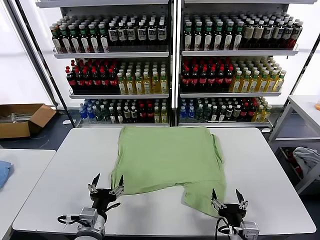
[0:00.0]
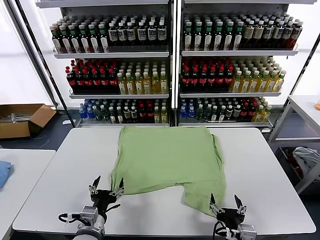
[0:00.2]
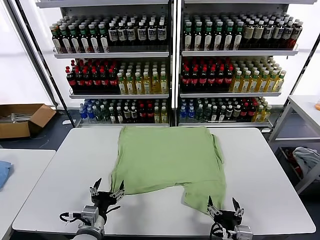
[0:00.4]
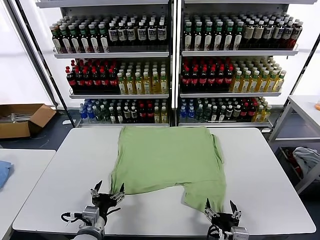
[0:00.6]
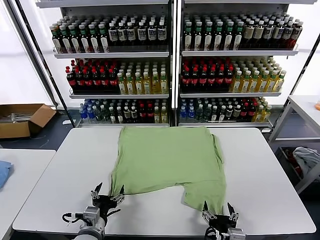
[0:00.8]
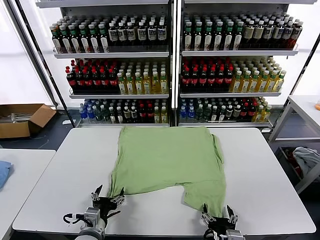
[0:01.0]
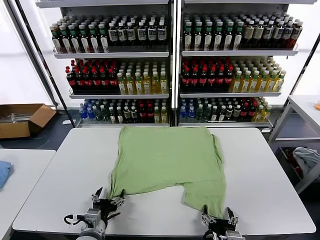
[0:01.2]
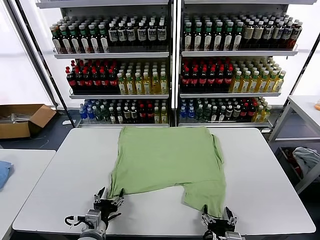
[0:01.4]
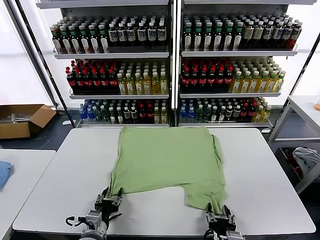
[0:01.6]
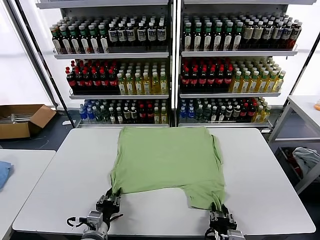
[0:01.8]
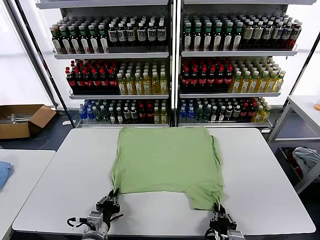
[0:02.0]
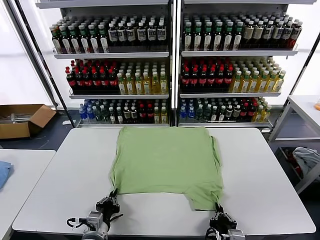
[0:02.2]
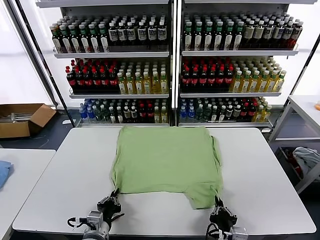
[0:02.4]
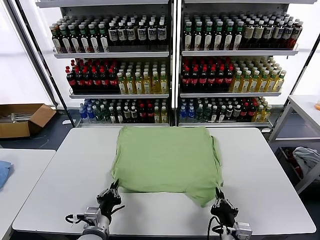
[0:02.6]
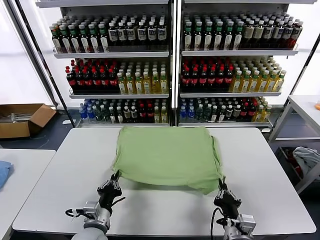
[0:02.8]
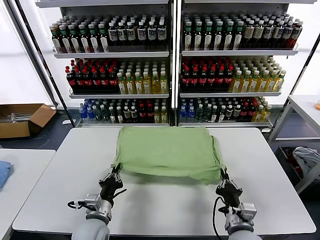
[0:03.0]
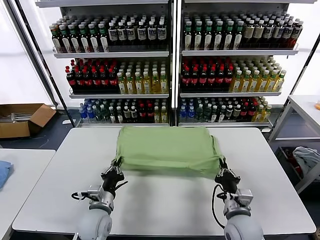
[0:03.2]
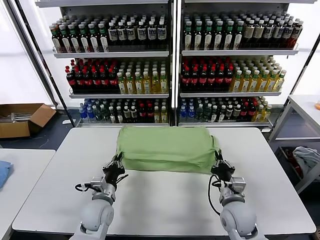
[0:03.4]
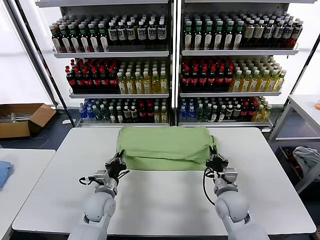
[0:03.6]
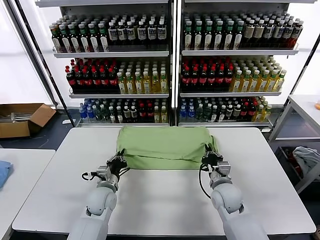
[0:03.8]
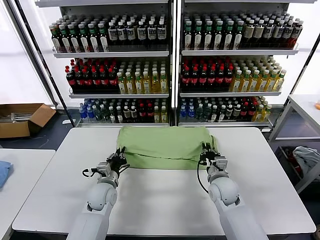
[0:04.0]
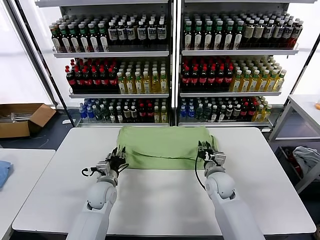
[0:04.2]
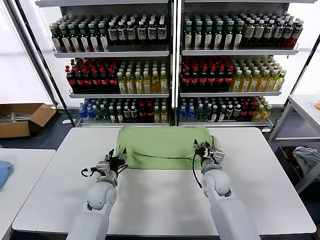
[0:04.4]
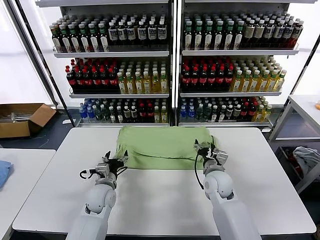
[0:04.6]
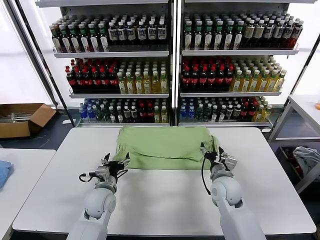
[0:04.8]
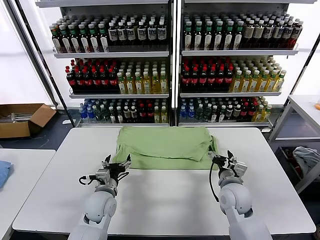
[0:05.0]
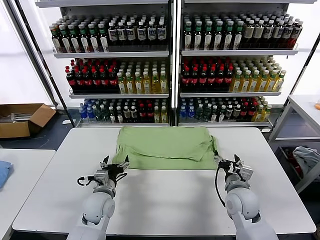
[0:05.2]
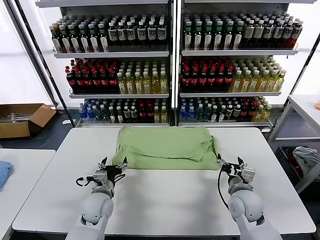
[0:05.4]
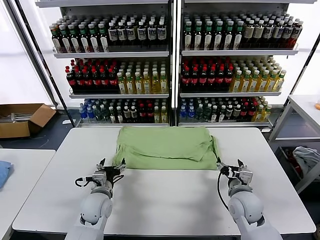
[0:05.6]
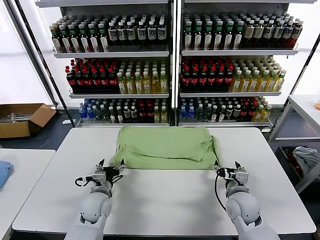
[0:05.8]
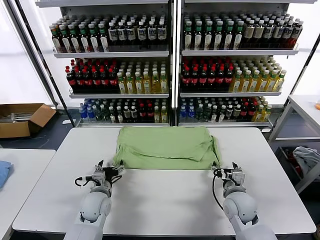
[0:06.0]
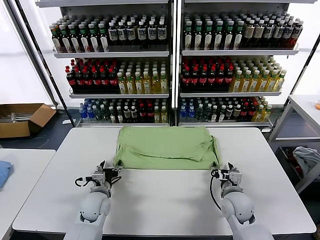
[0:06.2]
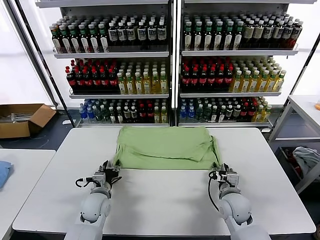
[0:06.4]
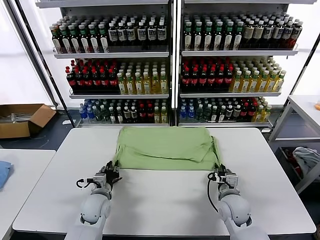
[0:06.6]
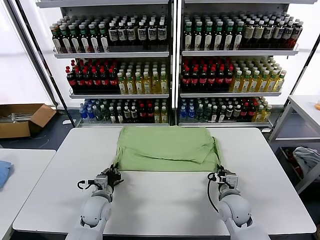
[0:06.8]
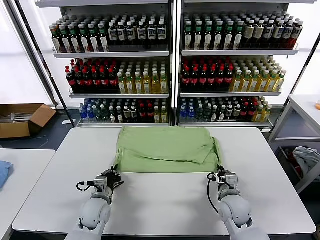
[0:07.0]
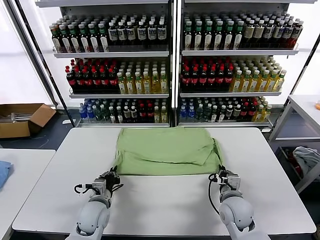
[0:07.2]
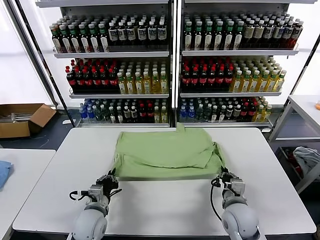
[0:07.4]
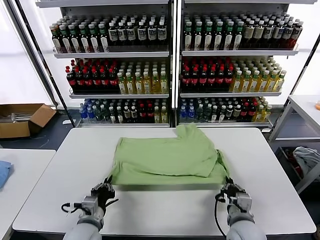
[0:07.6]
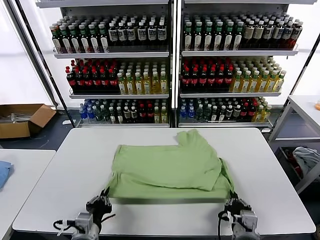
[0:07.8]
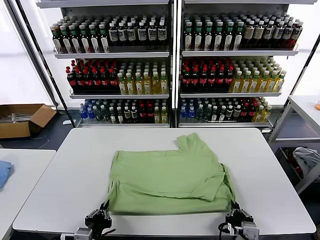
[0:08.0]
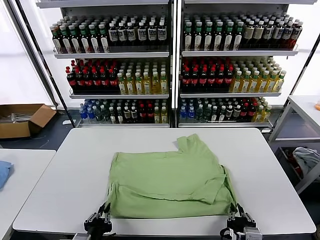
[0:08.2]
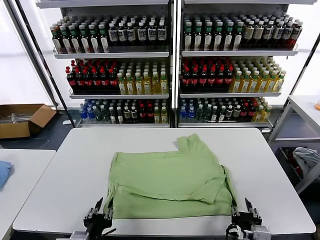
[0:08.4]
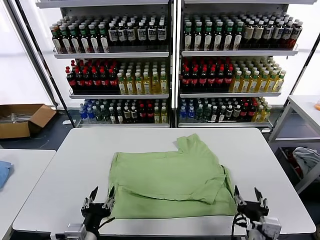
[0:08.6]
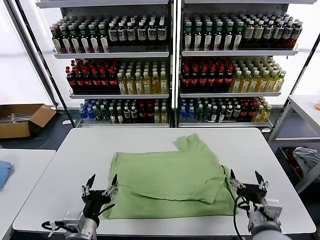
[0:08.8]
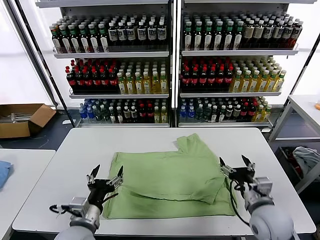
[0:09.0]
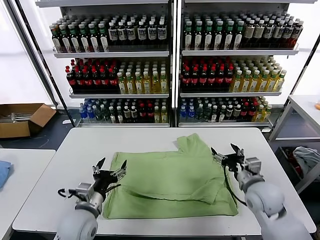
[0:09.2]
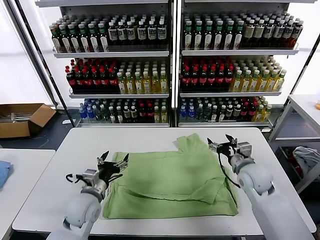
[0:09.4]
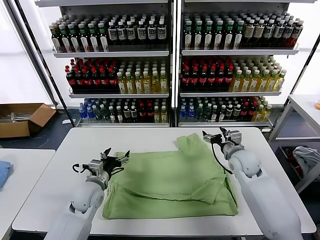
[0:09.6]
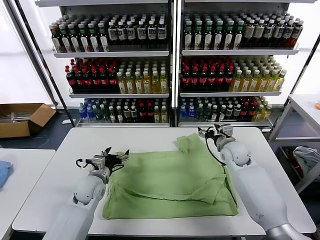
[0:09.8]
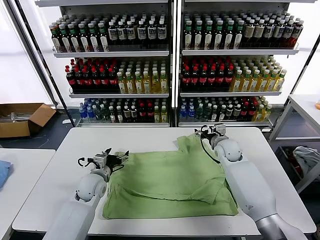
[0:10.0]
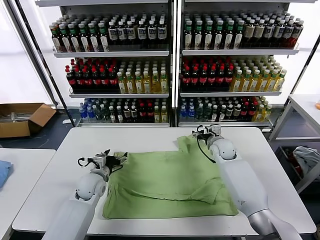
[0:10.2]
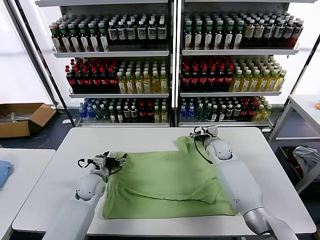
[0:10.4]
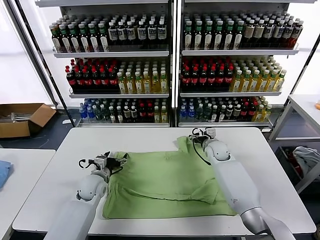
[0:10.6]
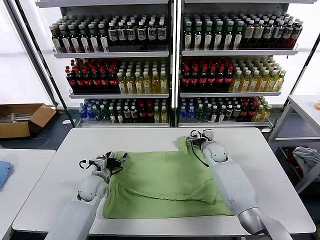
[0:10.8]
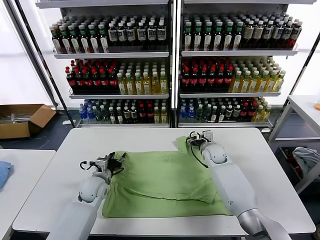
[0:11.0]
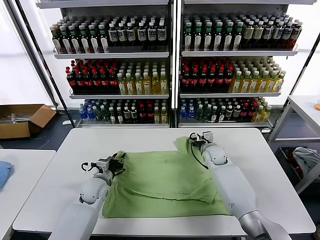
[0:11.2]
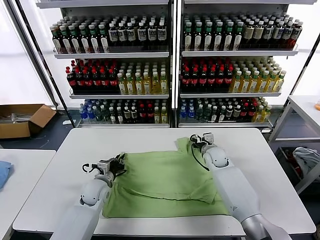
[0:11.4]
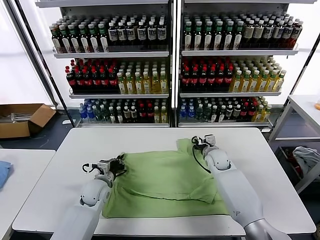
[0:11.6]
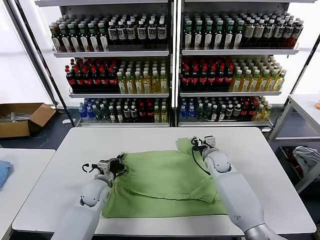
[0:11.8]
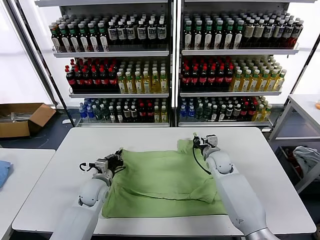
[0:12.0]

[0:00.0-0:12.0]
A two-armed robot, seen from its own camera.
Task of the whole recording: fold and organize the clothes.
Step, 0:00.0 to 0:02.2: use both grippers simultaneously to clamp the lower edge of the clothing fabric.
Step, 0:02.6 to 0:04.6: use both grippers to drag the lower edge of the fabric forward and fold it over the upper edge.
Step, 0:04.8 to 0:08.4: Drag the clothes downward with both gripper.
Step, 0:08.6 to 0:11.6: use both grippers simultaneously to clamp the upper edge of the clothing fabric.
0:01.6 to 0:03.0: The left gripper travels forward by about 5 cm, and closes. The right gripper travels forward by about 10 cm, and closes its fingers.
0:03.0 to 0:04.4: Both grippers move forward, approximately 15 cm. The left gripper opens its fingers. Meanwhile the right gripper opens its fingers.
0:04.4 to 0:06.0: The right gripper moves backward and to the right, approximately 10 cm.
0:06.0 to 0:07.6: The grippers both shift backward by roughly 15 cm. The left gripper closes up. Meanwhile the right gripper closes up.
0:07.6 to 0:09.0: The right gripper heads forward, upward and to the right, covering some 10 cm, and opens. The left gripper shifts some 5 cm upward, moves some 10 cm backward and comes back, and opens.
0:09.0 to 0:10.4: Both grippers travel together forward, approximately 25 cm.
0:10.4 to 0:12.0: The left gripper closes; the right gripper heads backward, covering approximately 5 cm, and closes its fingers.

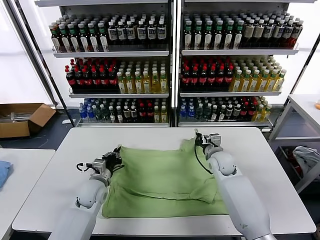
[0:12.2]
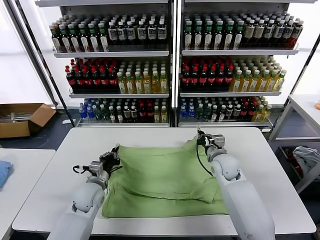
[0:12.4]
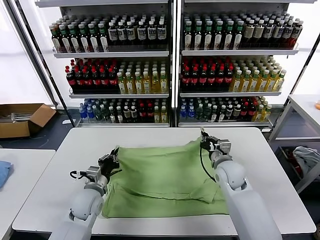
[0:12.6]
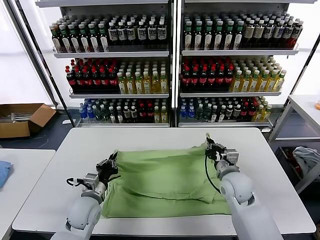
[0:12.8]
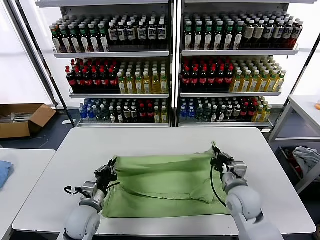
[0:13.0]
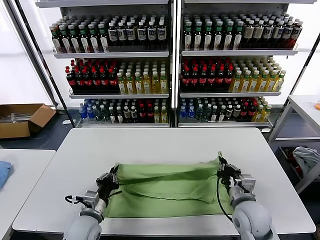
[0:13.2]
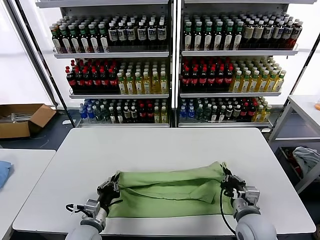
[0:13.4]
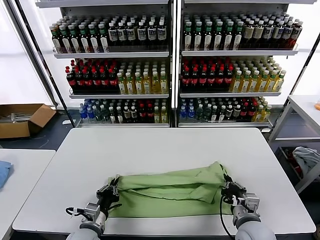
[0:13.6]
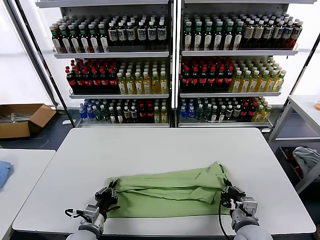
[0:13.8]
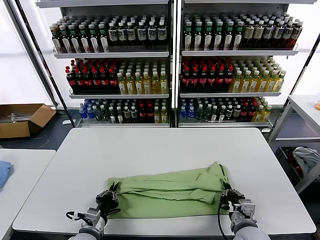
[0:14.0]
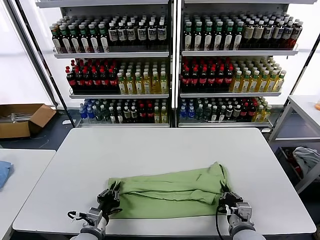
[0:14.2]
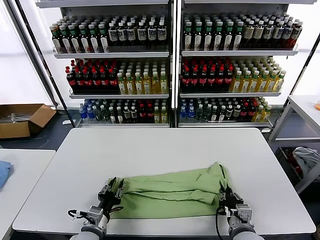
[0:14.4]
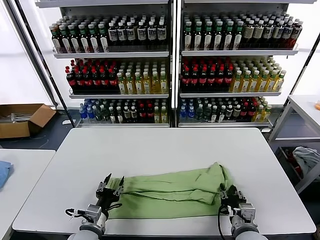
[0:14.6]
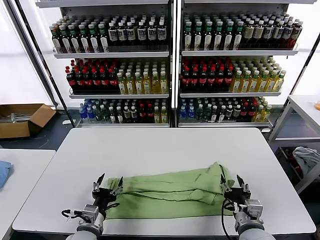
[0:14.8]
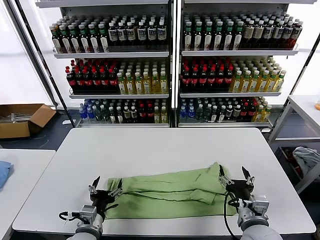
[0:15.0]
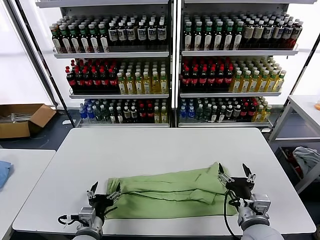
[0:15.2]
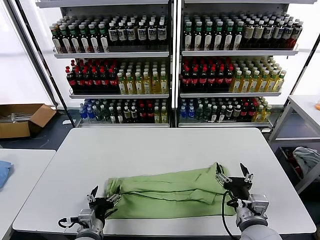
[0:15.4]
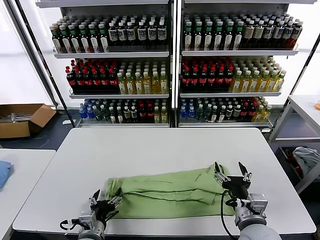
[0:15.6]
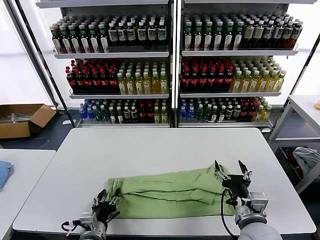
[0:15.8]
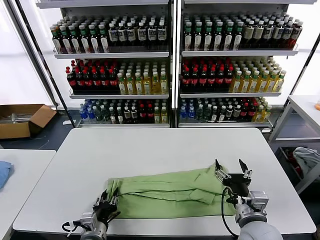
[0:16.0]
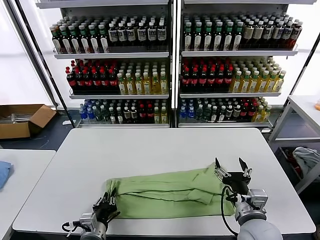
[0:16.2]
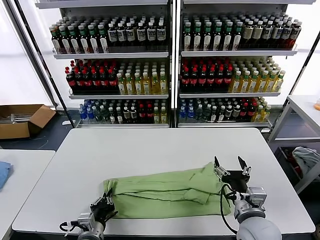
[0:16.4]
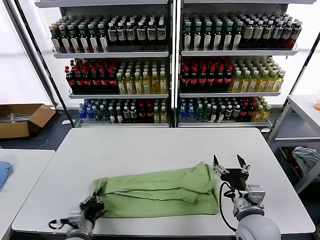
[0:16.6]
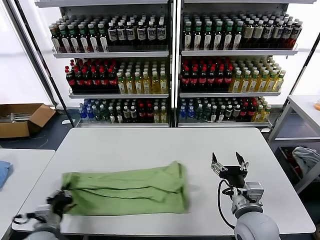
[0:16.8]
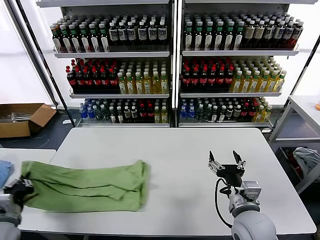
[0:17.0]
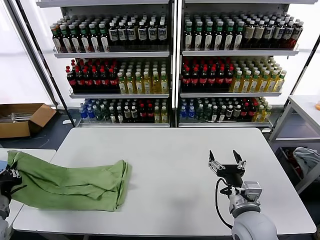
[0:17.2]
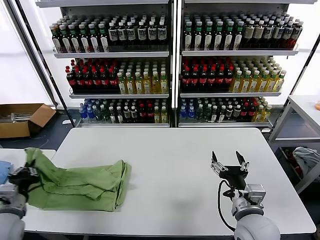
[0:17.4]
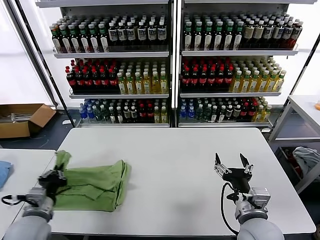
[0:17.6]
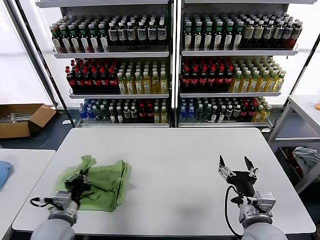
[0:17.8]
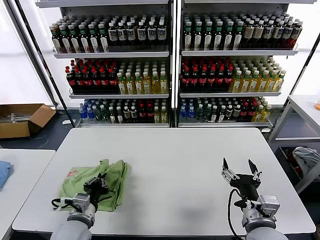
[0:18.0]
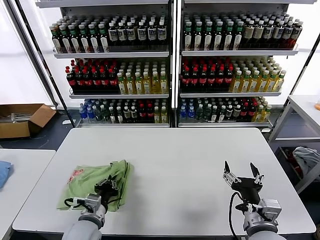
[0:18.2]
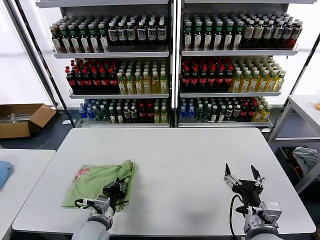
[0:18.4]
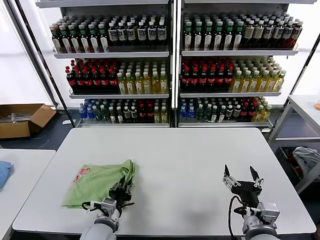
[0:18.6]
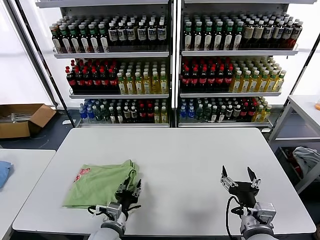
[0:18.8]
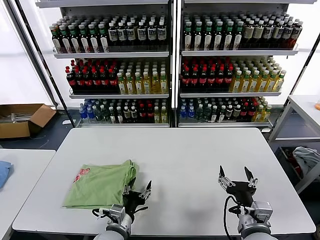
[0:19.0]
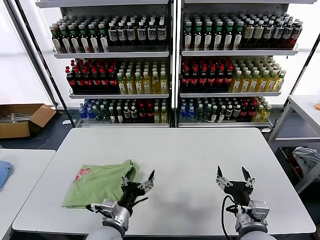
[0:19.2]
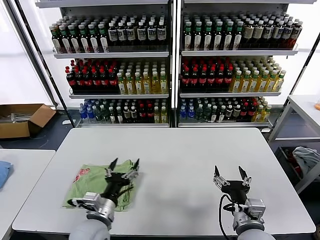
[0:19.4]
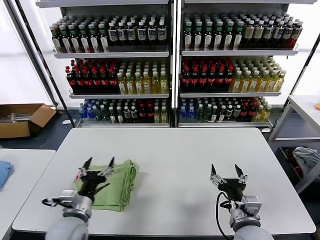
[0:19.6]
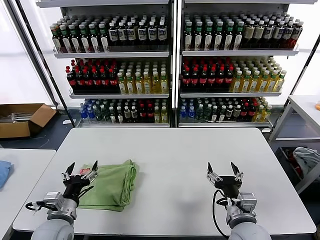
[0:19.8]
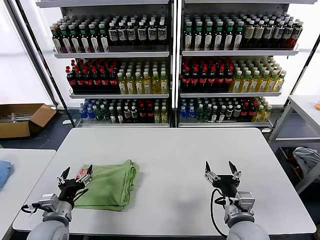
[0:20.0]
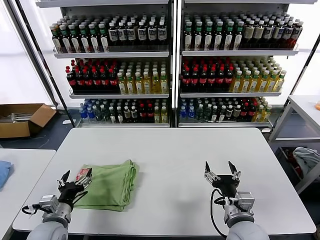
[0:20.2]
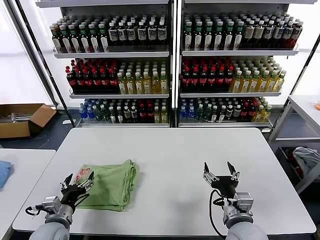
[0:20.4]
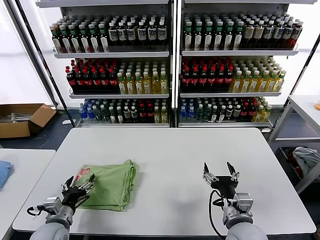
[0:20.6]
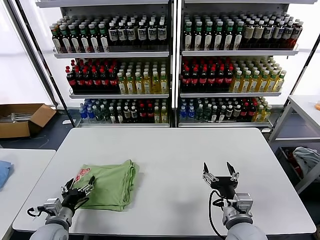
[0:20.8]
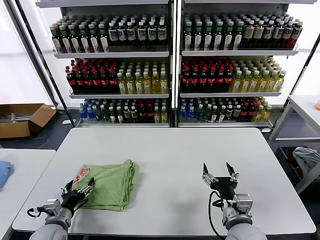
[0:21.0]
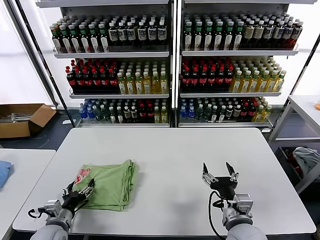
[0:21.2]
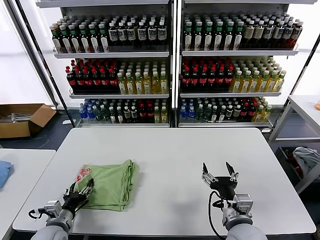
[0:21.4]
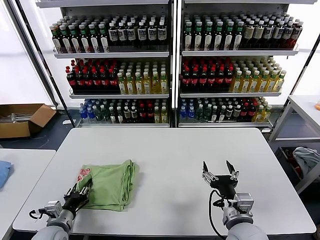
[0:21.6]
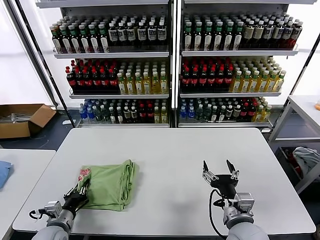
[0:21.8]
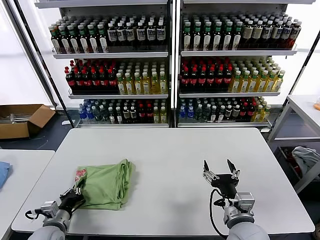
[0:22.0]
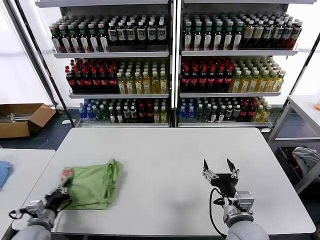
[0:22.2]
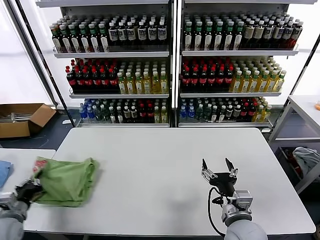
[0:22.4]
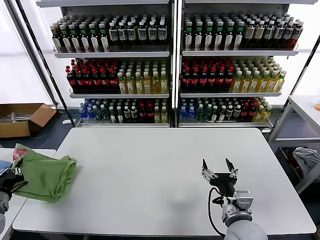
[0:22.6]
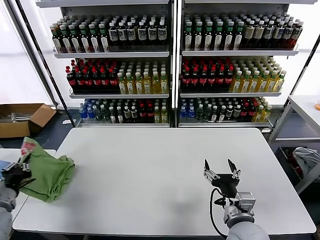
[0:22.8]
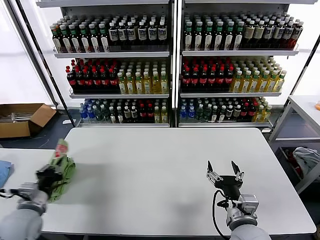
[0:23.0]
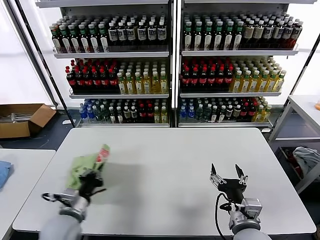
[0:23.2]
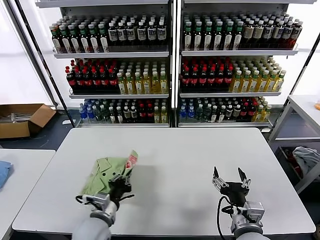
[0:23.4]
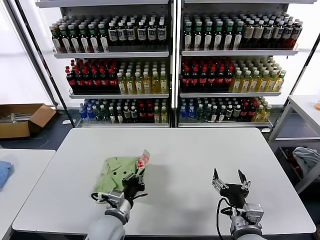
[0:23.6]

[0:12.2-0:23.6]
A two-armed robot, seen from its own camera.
Task of the whole recording: fold and organize the clothes.
Step, 0:12.2 to 0:14.8: use both grippers to drag the upper edge of the fabric backward and fold it over the lower edge.
Step, 0:15.0 to 0:16.2: use the left gripper to clamp the left edge of the fabric.
Step, 0:16.4 to 0:18.8: use the left gripper to drag the left edge of the fabric to the left and folds it over the right edge.
0:12.2 to 0:13.6: The left gripper travels backward by roughly 15 cm. The right gripper heads backward, covering approximately 25 cm.
0:13.6 to 0:15.0: The right gripper opens up. Meanwhile the left gripper opens up.
0:15.0 to 0:16.4: The left gripper closes up.
0:16.4 to 0:17.8: The left gripper heads upward, covering approximately 10 cm, and travels to the left and back again, some 25 cm each way.
0:17.8 to 0:19.4: The left gripper moves to the right, approximately 10 cm, and opens its fingers.
0:19.4 to 0:20.8: The left gripper travels to the left and downward by about 15 cm.
0:20.8 to 0:22.2: The left gripper shifts about 5 cm to the left, and closes.
0:22.2 to 0:23.6: The left gripper is displaced to the right by about 25 cm.
